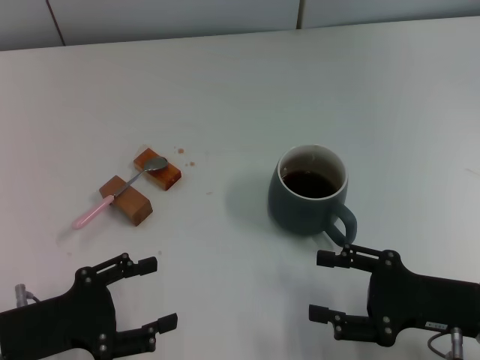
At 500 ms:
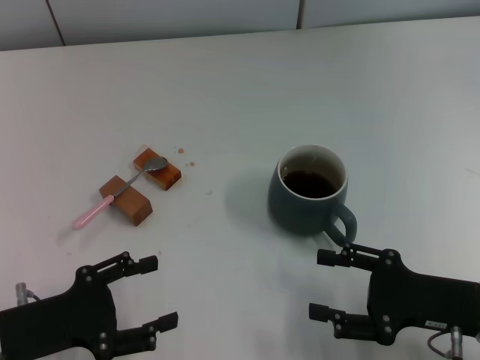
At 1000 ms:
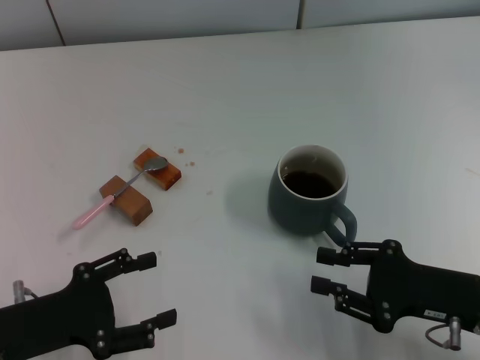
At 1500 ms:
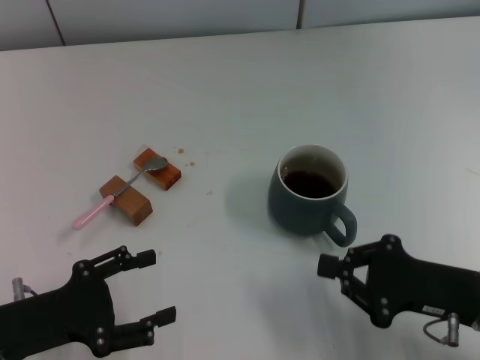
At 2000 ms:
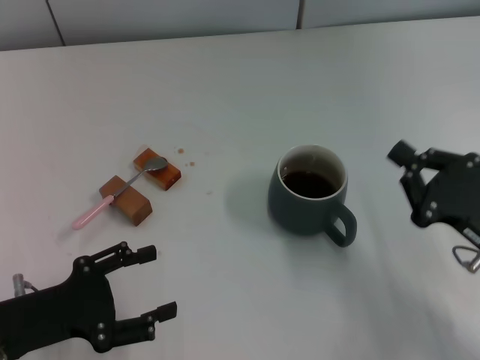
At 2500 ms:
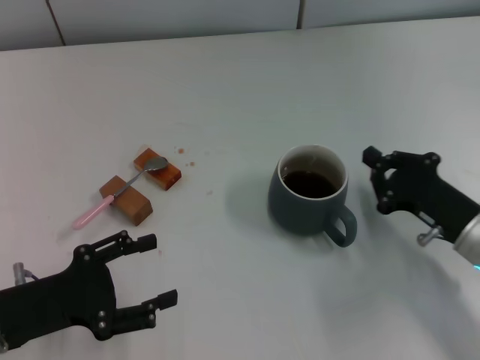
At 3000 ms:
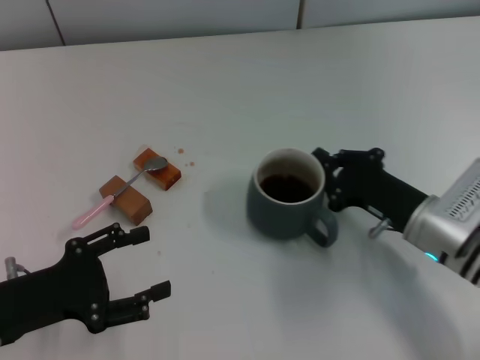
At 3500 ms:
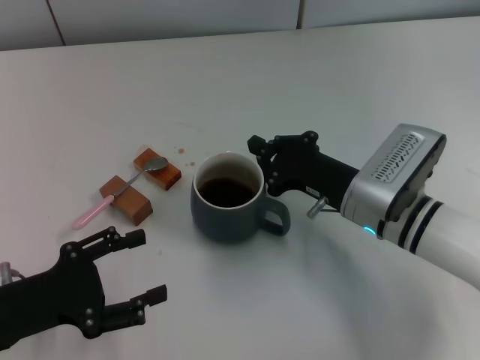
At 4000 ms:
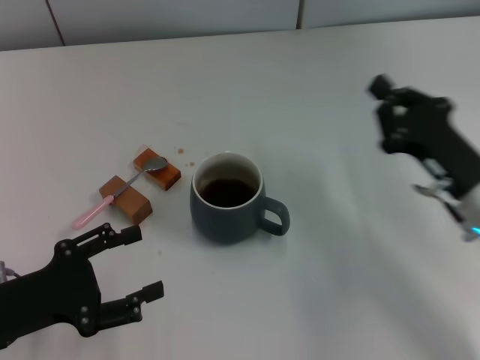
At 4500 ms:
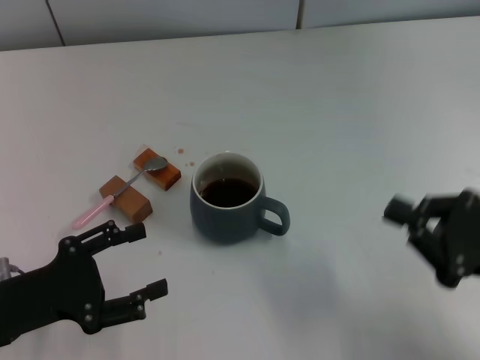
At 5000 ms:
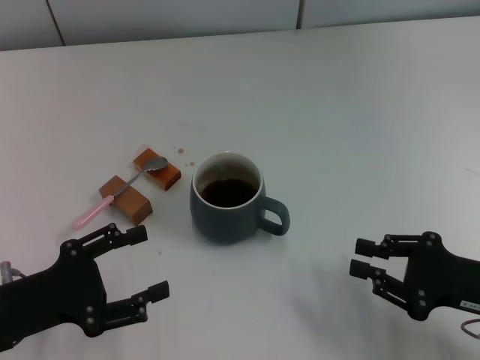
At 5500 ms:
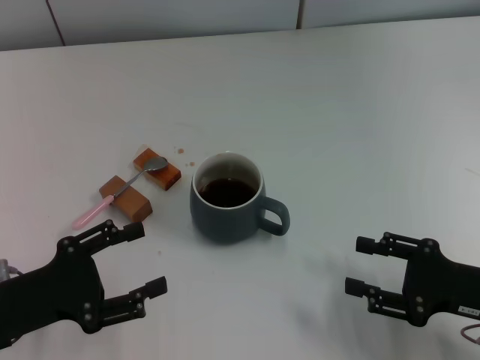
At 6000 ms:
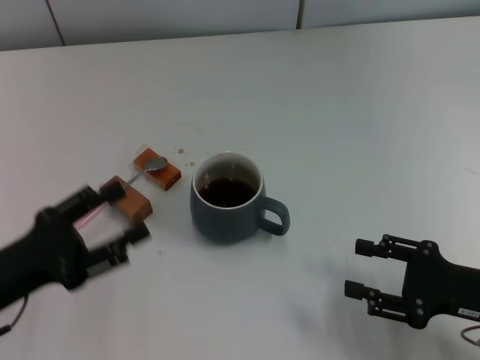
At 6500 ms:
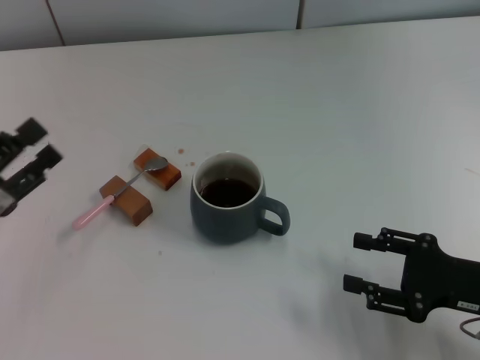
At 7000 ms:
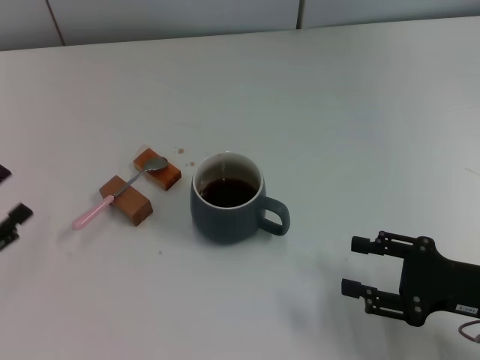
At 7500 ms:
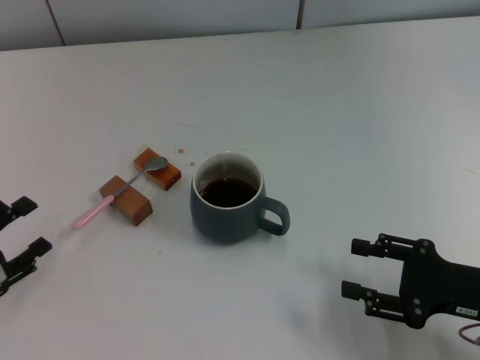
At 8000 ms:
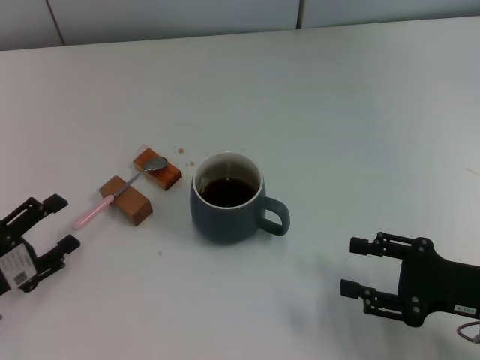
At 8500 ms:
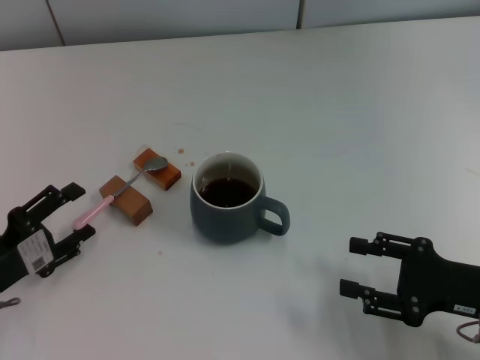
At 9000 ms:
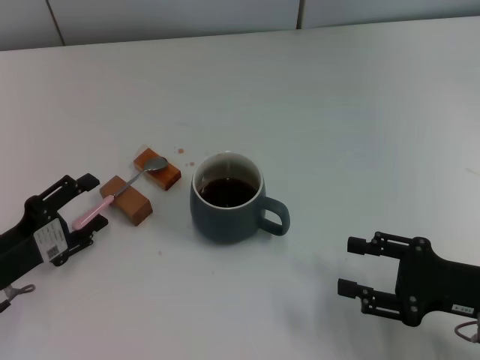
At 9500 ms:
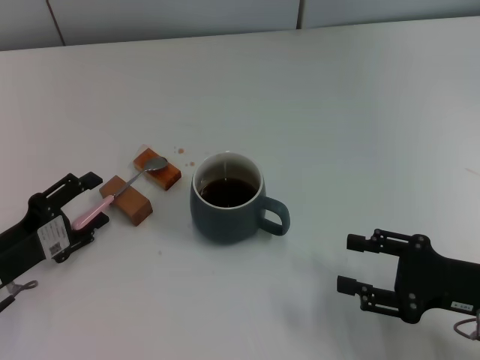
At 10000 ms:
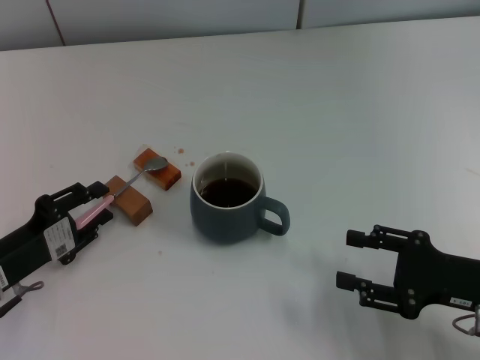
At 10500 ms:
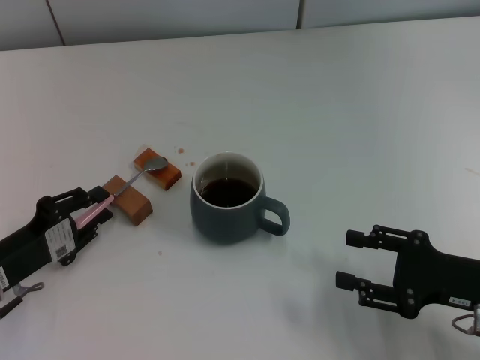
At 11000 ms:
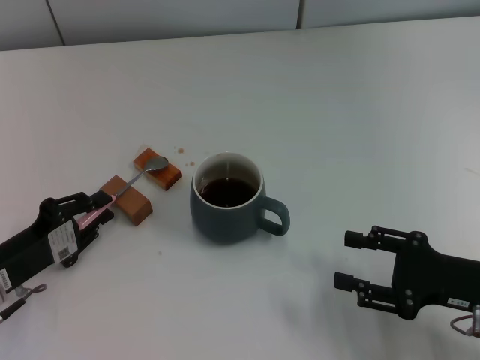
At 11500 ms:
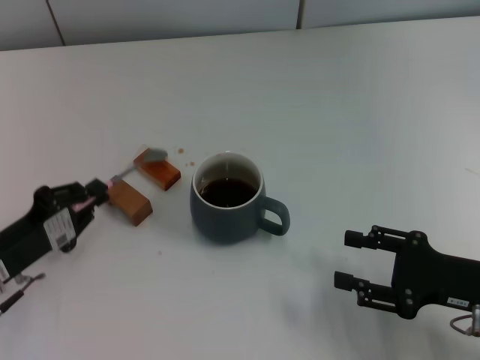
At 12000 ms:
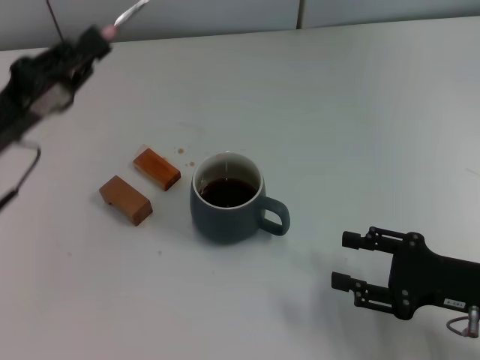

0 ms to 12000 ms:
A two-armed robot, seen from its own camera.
Task of the whole recording: Move the grey cup to the center, lift the pink spoon, stir it three times in the cup, and put the spoon into the cup.
Step, 0 ms to 3500 ms: Move the cup with coffee to the center of view with the right gripper.
Step, 4000 ms to 11000 ms: Pick up the spoon with the left gripper.
0 ms to 2000 ms: The right gripper closes.
2000 ms to 4000 ms: The right gripper is displaced forward by roughly 5 cm, and travels to the left and back again, some 15 cm each way.
4000 ms to 6000 ms: The right gripper moves backward, roughly 5 cm, and opens its fingers.
6000 ms to 8000 ms: The left gripper changes place by about 5 cm.
8000 ms to 10000 ms: The left gripper shifts by roughly 5 cm.
10000 ms to 12000 ms: The left gripper is displaced upward and forward by about 10 cm, and closes its fingers.

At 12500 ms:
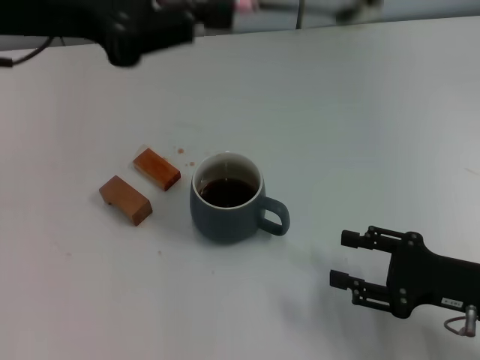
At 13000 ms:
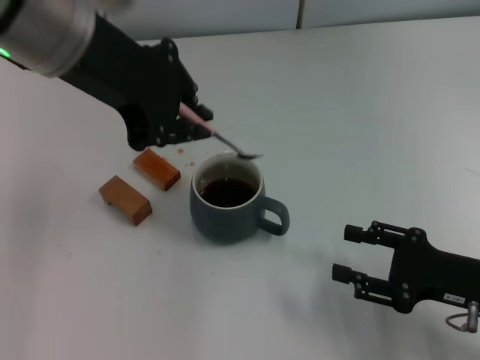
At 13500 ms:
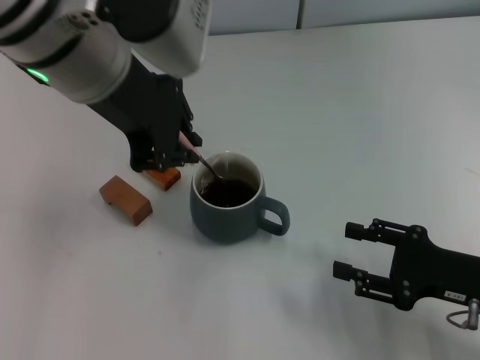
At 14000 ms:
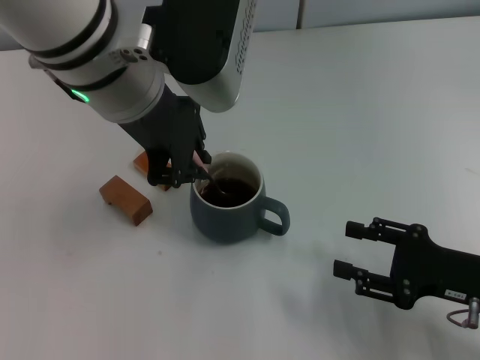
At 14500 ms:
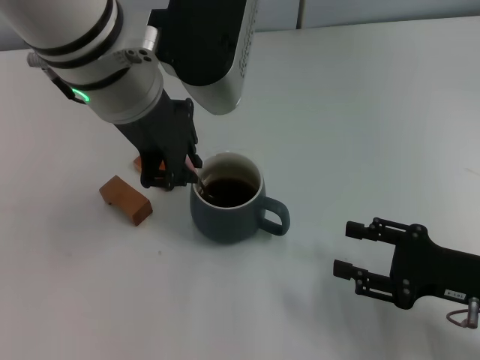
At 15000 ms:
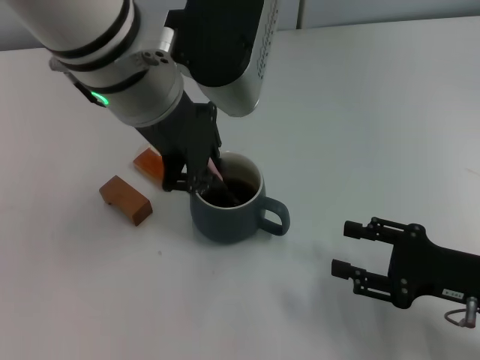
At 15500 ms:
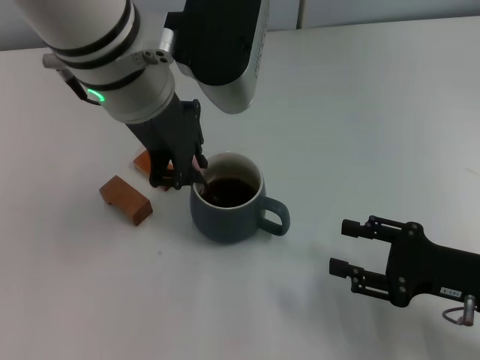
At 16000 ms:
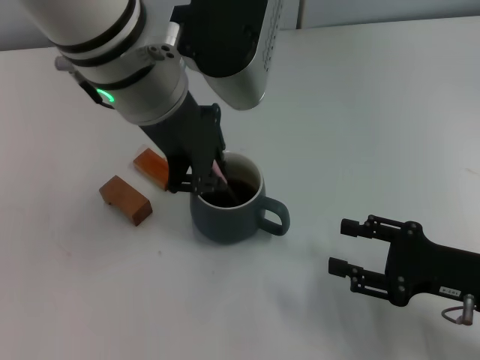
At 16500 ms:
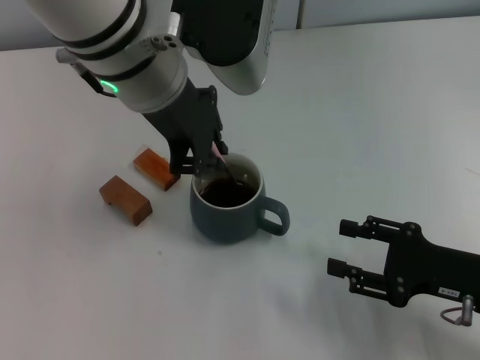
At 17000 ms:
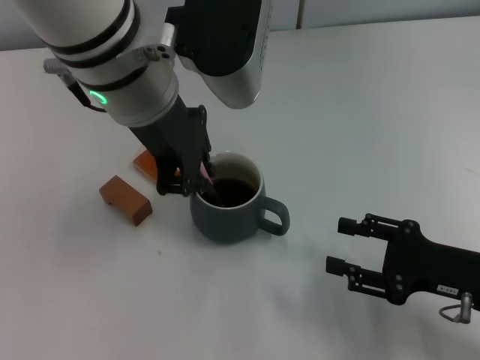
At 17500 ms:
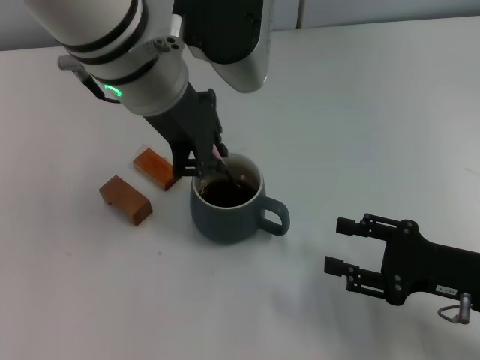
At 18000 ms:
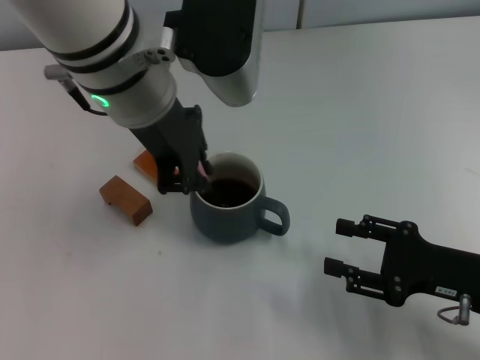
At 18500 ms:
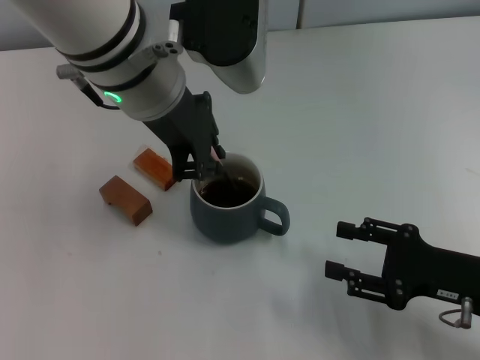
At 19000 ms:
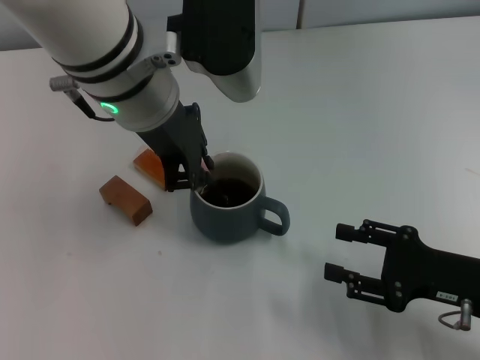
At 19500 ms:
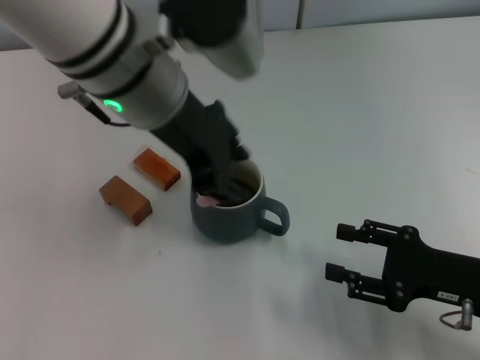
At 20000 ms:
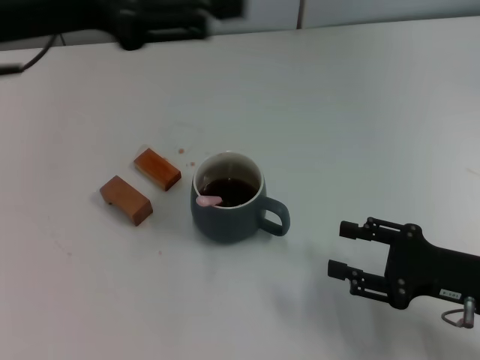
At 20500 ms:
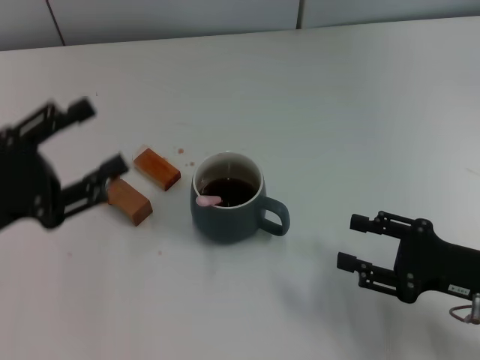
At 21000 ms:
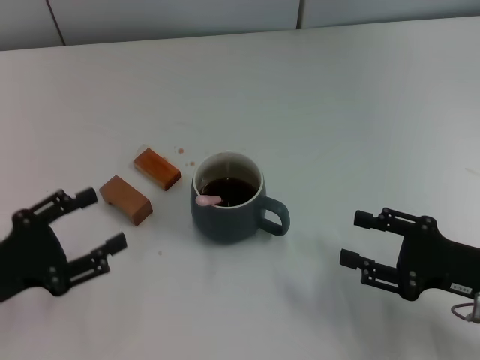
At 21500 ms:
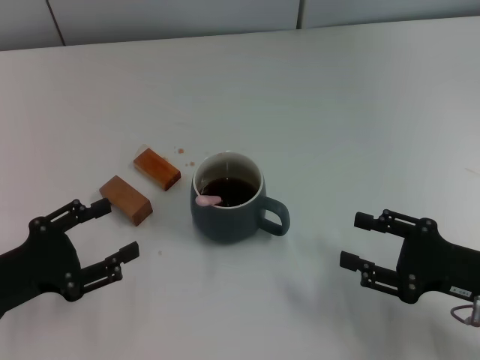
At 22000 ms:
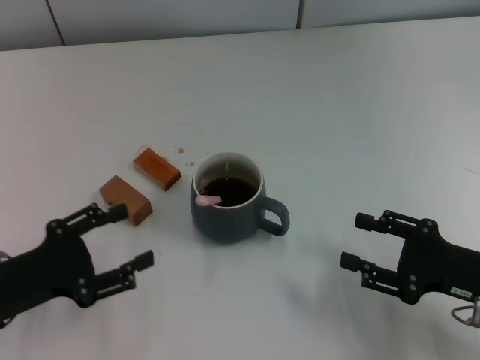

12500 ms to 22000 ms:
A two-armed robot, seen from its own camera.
Task of the whole recording: Move the grey cup to the center, lift the pink spoon, stir it three times in the cup, and put the spoon into the cup.
Step, 12500 ms to 19500 ms: Stir the coffee in the cup with the left gripper.
12500 ms to 14500 ms: The left gripper moves to the right, approximately 10 cm.
14500 ms to 18000 ms: The grippers stay close to where they were, moving slightly.
18000 ms to 20000 ms: The left gripper shifts roughly 15 cm to the left, and opens.
20000 ms to 22000 ms: The left gripper goes about 25 cm downward and backward.

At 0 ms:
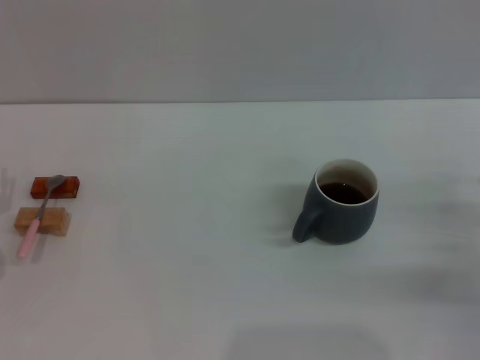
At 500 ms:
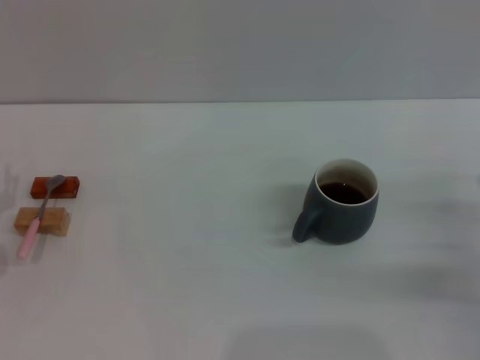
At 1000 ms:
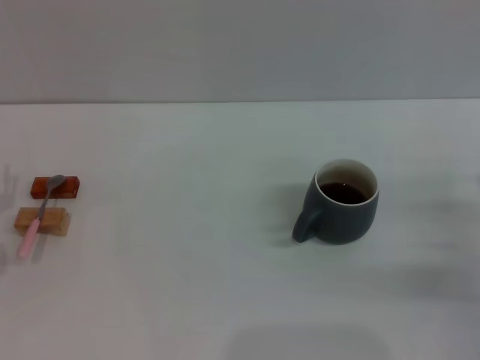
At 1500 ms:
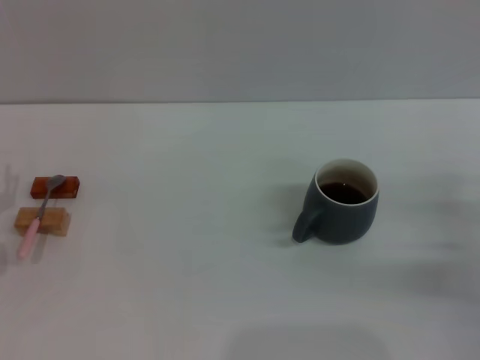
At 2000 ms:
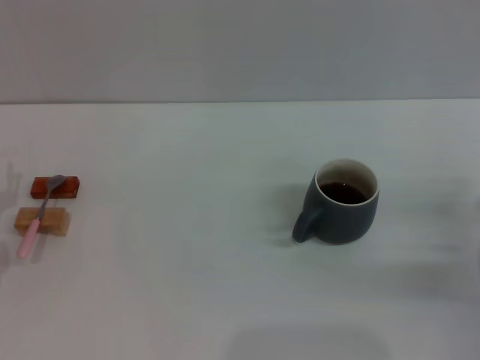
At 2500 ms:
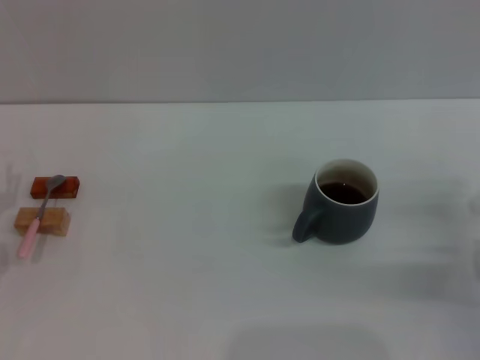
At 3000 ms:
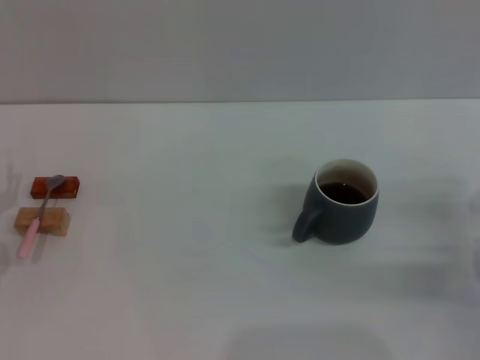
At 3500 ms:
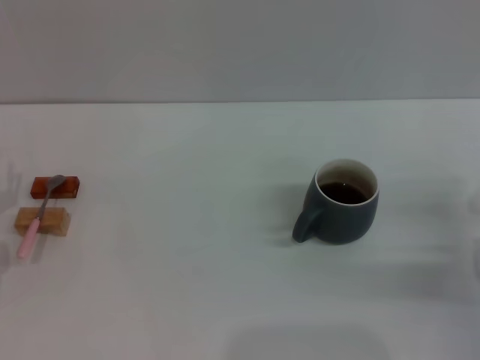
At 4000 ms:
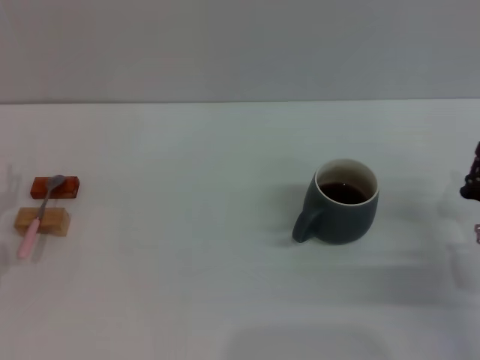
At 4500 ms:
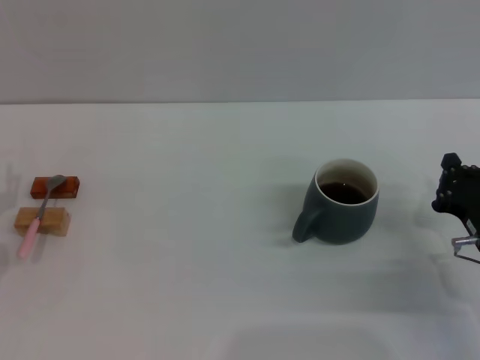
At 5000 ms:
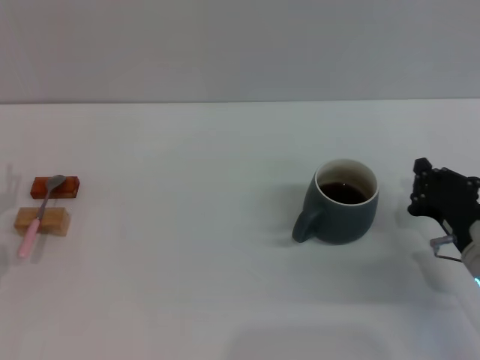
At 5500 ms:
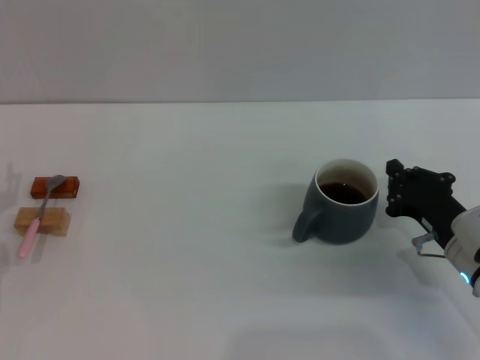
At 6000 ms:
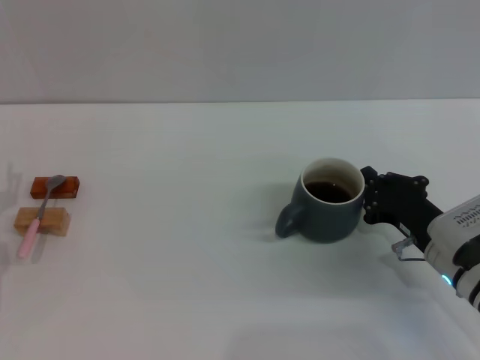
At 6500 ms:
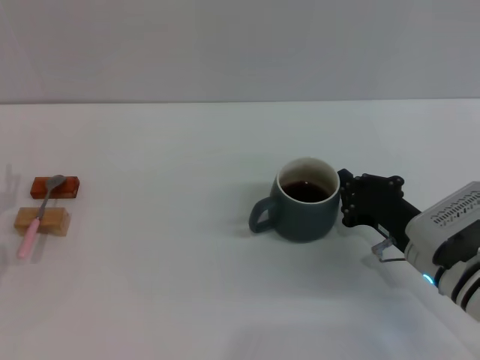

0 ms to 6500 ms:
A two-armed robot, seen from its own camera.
Task of the whole recording: Move the grey cup to the center, lift the pink spoon, stir it three times in the cup, and put the spoon into the cup.
2000 ms to 4500 ms: There are only small adjustments of the grippers.
4500 ms to 6500 ms: The right gripper heads to the left, covering about 5 cm.
